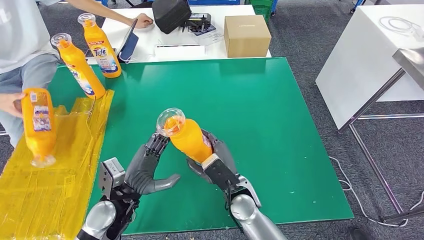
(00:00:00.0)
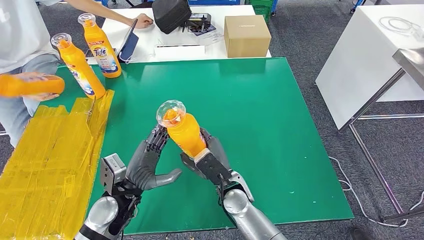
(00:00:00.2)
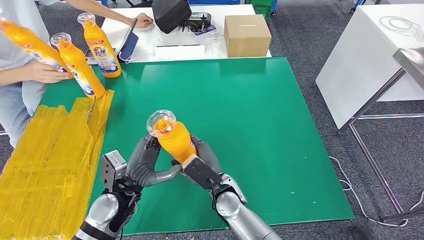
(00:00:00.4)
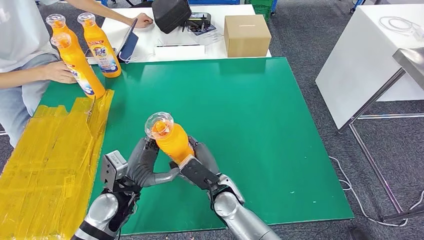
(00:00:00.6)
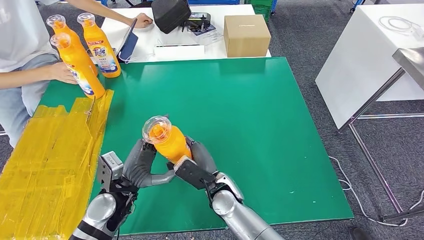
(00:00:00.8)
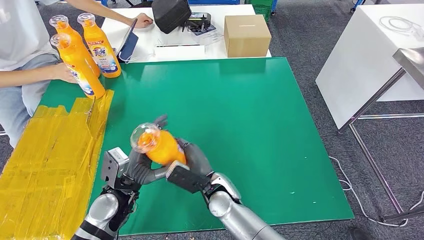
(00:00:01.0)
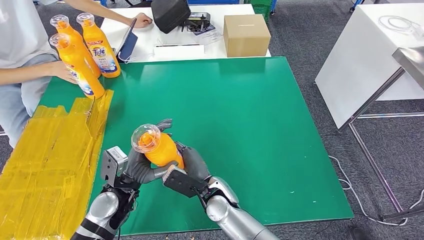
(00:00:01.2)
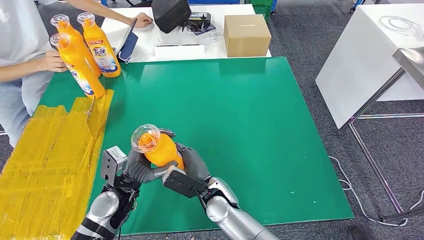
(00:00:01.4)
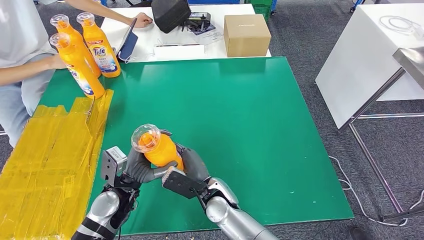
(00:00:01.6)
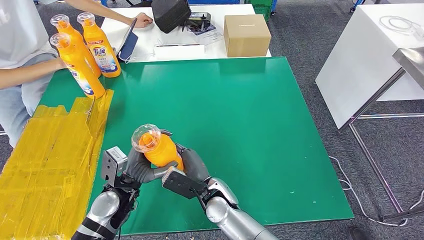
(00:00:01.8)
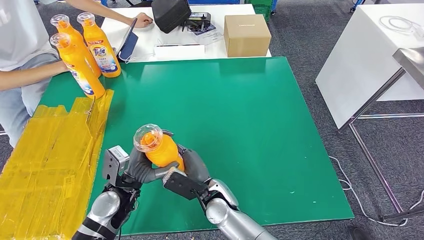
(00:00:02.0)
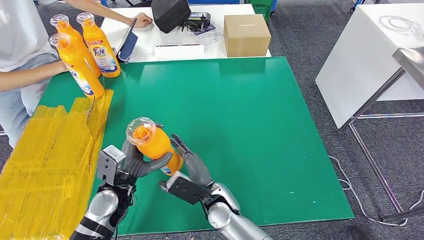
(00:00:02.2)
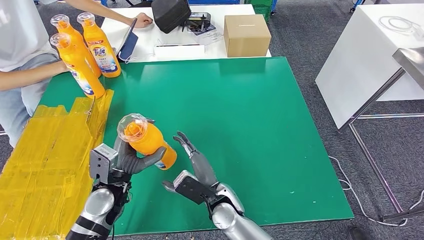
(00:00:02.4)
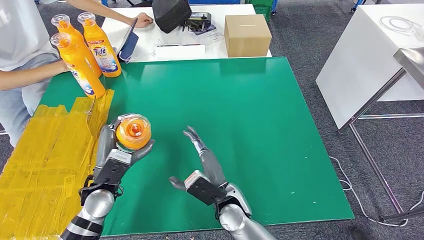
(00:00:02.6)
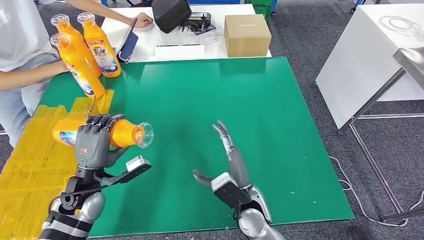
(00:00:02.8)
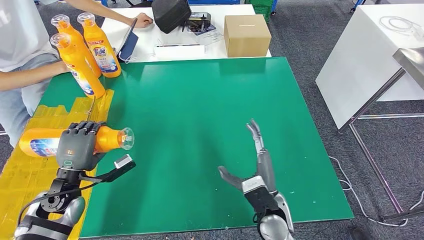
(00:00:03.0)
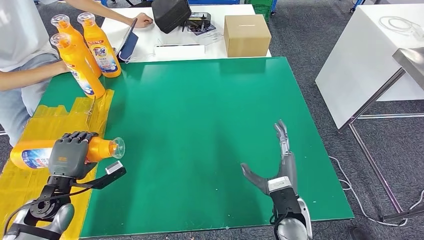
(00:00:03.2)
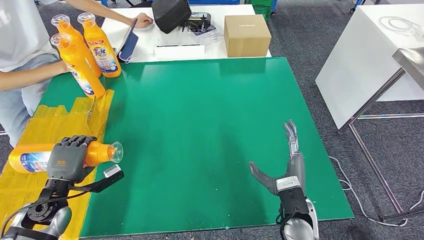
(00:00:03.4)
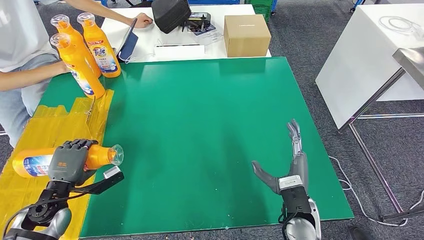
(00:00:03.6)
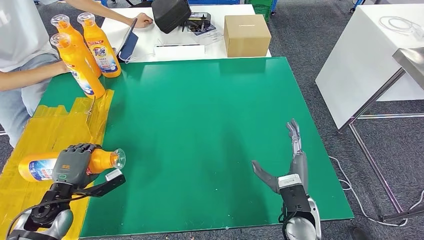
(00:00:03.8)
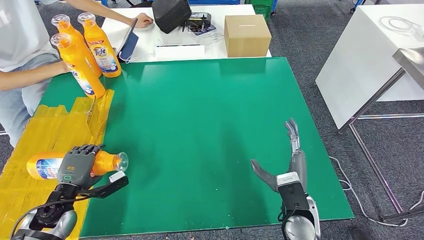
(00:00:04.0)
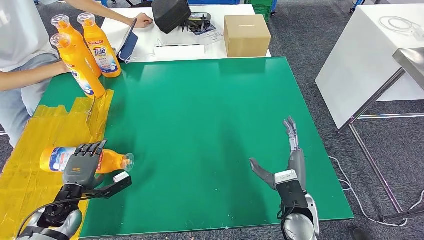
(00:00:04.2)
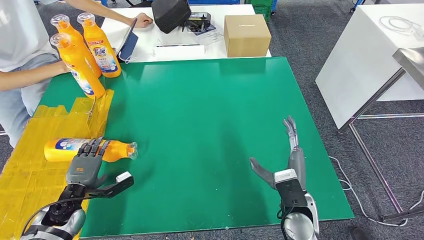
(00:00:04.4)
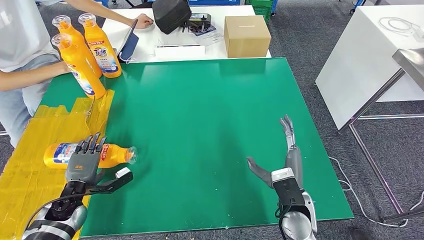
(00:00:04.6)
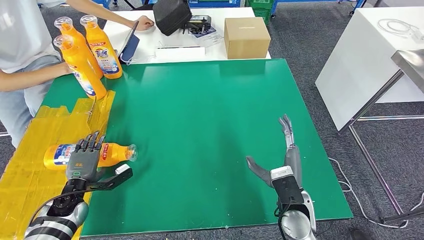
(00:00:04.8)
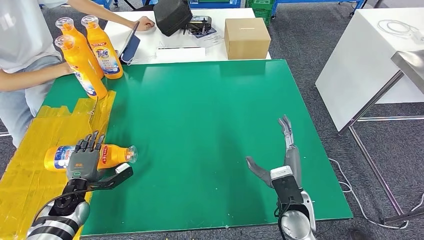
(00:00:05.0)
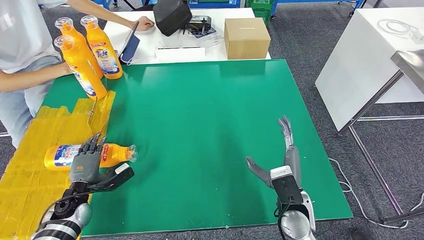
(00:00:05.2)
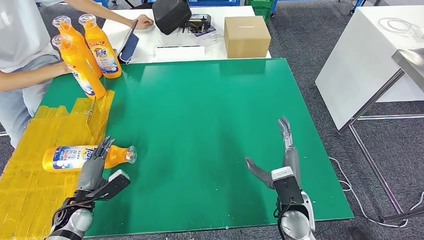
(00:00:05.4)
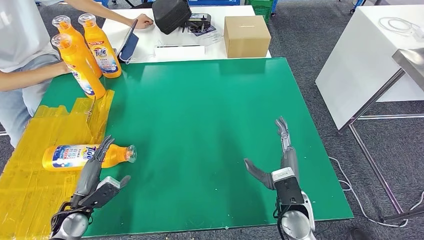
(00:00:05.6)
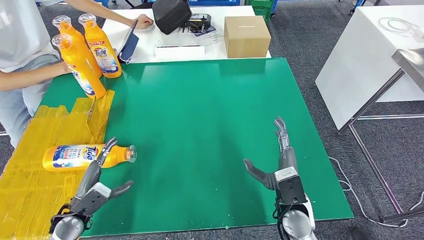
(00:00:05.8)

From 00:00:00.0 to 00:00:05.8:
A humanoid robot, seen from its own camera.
Step, from 00:00:00.4 to 00:00:05.8: Flip the bottle to face forward.
From 00:00:00.0 to 00:00:01.4: The right hand heads to the left, covering about 5 cm.
From 00:00:01.4 to 00:00:02.8: The right hand is displaced to the right by about 10 cm. The left hand is displaced to the left by some 10 cm.
From 00:00:02.8 to 00:00:04.4: The left hand moves downward and to the left, about 10 cm, while the right hand goes about 10 cm to the right.
